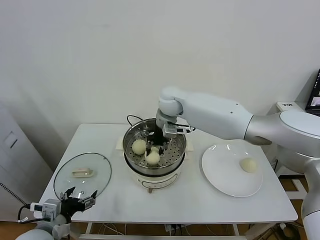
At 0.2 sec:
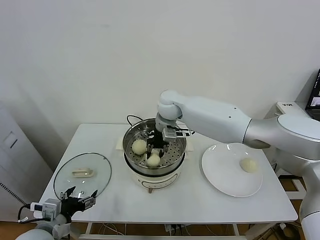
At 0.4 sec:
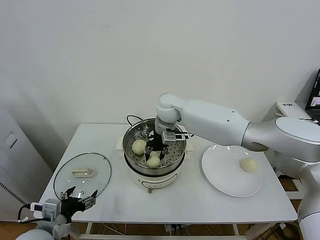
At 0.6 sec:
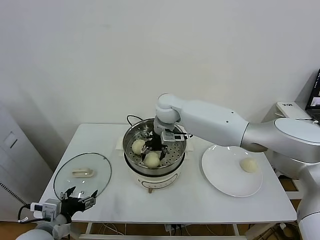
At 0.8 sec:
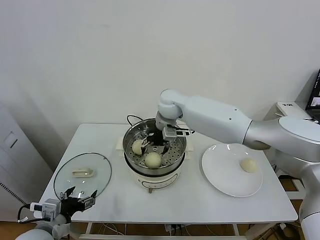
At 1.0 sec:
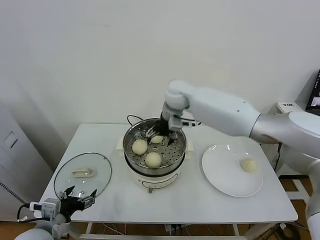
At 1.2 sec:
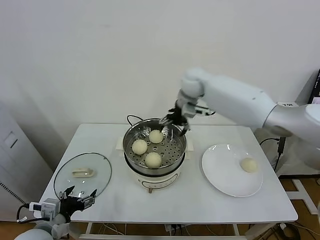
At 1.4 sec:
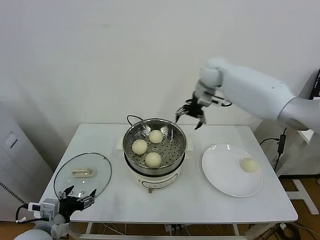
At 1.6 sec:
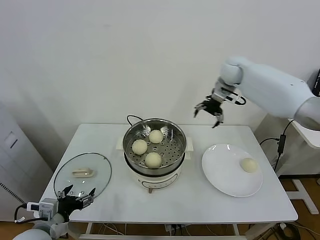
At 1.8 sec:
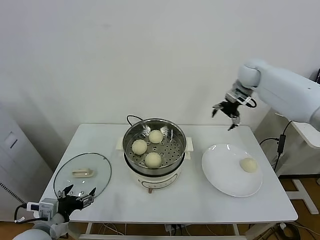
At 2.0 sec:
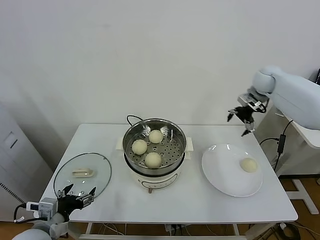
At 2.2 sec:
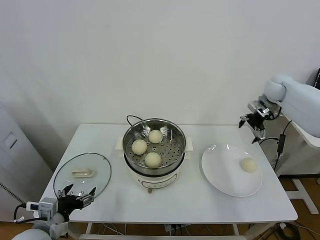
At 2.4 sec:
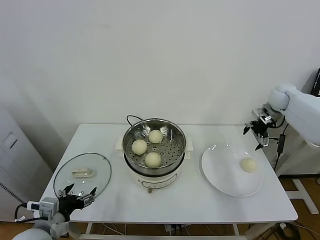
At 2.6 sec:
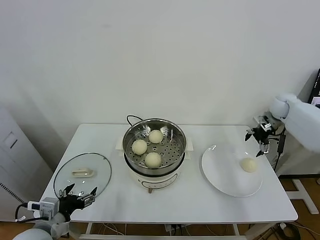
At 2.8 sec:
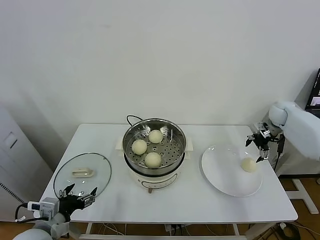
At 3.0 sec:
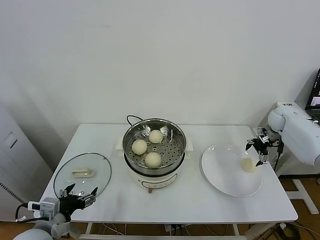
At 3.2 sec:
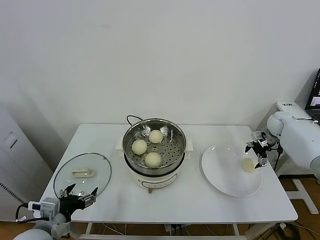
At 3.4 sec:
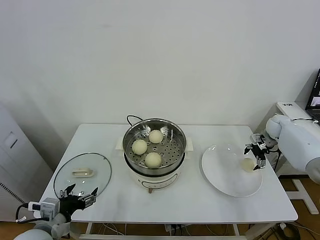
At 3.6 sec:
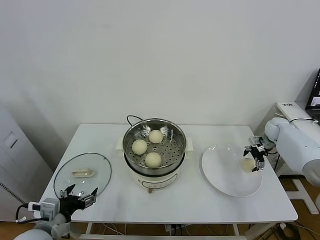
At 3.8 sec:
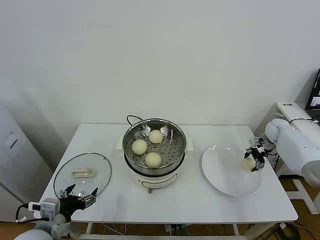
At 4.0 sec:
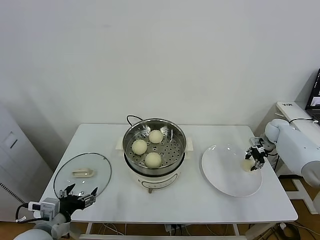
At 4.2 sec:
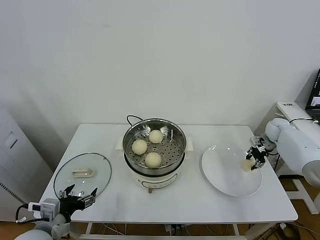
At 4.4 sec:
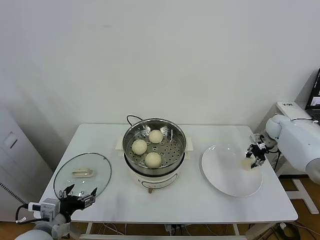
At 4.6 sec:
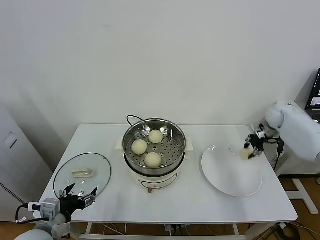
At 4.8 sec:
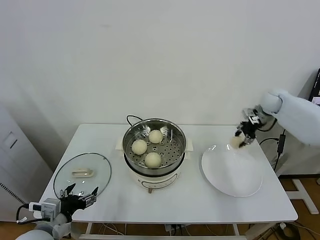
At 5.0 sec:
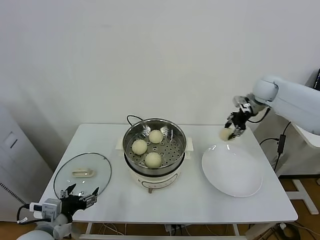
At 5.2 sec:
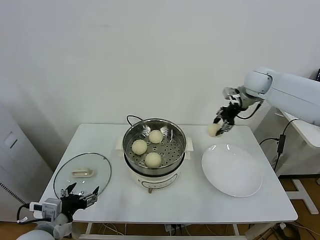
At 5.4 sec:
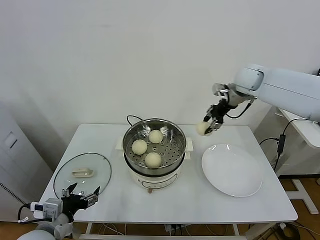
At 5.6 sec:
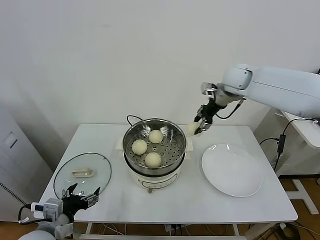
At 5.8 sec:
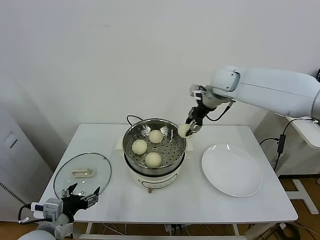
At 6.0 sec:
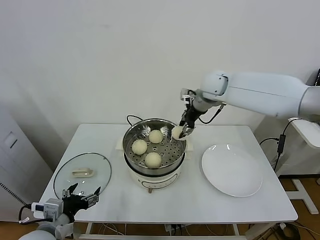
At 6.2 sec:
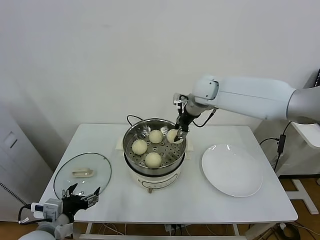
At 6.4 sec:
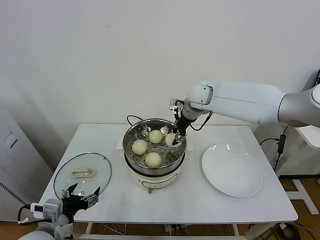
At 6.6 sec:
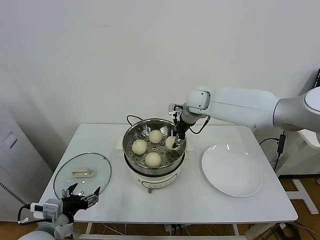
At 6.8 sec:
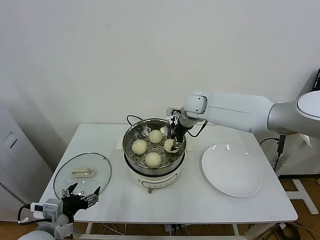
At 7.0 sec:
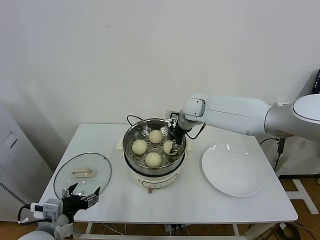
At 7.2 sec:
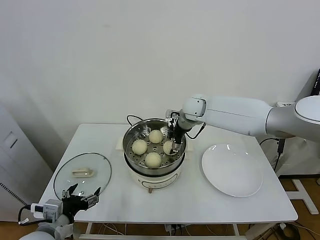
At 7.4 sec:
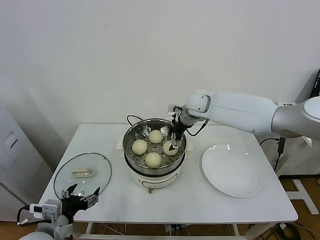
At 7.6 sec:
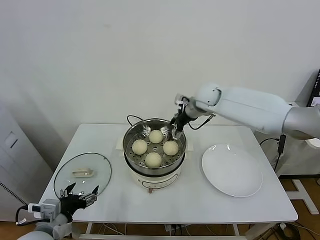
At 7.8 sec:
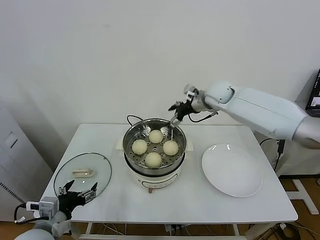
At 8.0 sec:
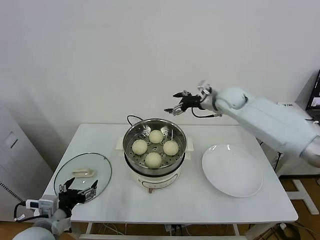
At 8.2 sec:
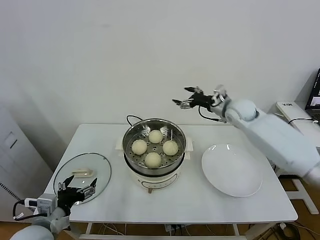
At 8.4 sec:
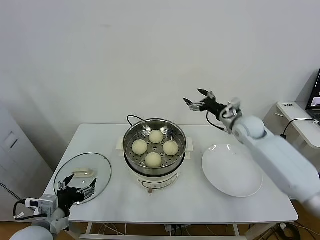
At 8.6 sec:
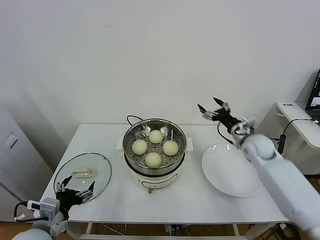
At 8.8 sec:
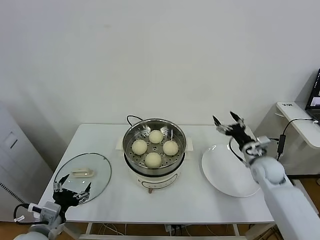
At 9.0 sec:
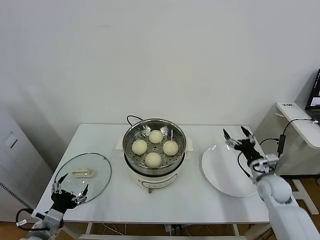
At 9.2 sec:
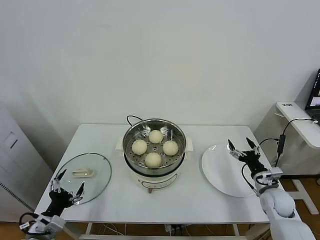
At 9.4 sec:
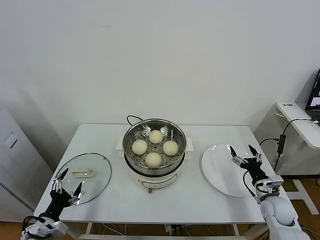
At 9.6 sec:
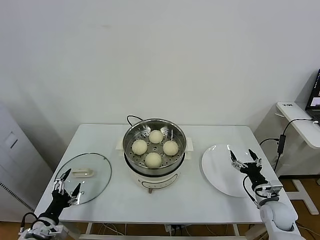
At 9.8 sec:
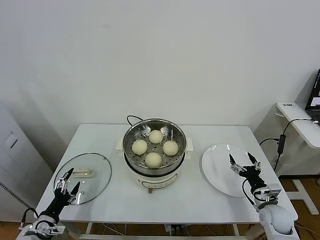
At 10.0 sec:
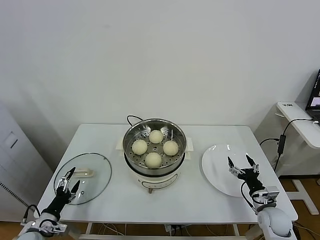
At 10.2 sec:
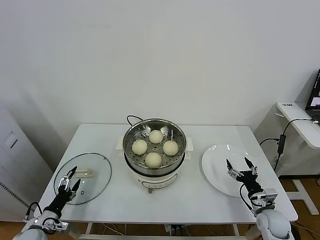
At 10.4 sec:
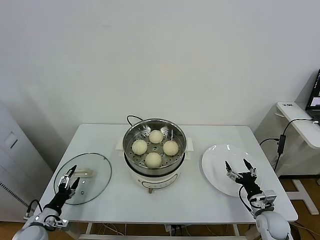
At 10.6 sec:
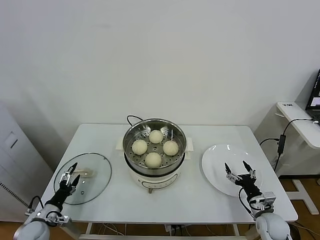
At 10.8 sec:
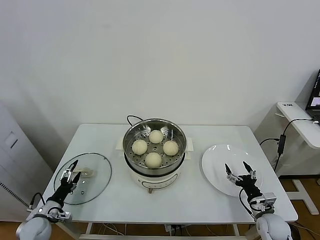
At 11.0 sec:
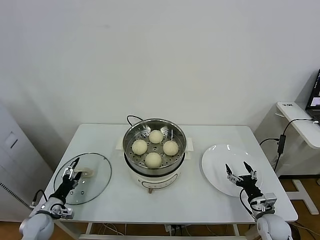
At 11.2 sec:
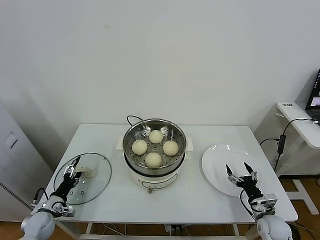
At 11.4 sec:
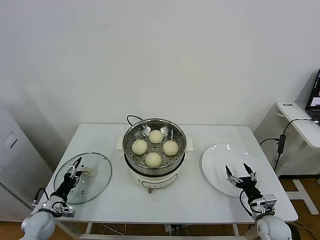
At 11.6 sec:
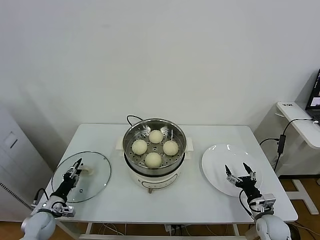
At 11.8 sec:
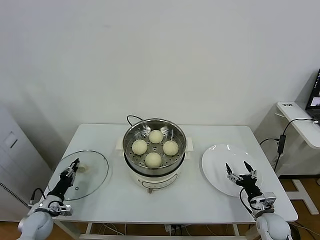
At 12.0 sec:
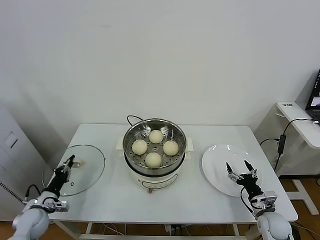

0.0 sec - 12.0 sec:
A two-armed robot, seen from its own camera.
Task of the whole recording: take steamed baozi put them in steamer.
Step, 1.0 sec - 3.8 sec: Grasp the baozi in the plate with right gripper.
Step, 4.2 sec - 7.2 sec: Place the baozi on the steamer with right gripper.
0.0 sec - 1.6 sec: The right gripper heads to the right, covering approximately 20 cm, and opens up.
1.6 sec - 3.0 sec: The right gripper goes some 30 cm to the right and downward.
3.0 sec - 4.4 sec: The right gripper closes its fingers.
4.4 sec - 6.0 sec: The right gripper shifts about 35 cm to the left and upward.
6.0 sec - 7.6 sec: The right gripper heads downward, covering about 5 cm, and opens its fingers.
7.6 sec - 9.0 sec: The left gripper shifts by roughly 5 cm, while the right gripper goes approximately 40 cm downward, to the right and backward.
9.0 sec - 10.4 sec: The right gripper moves downward and backward, some 15 cm. The left gripper goes roughly 20 cm downward, to the left and forward.
10.4 sec - 12.0 sec: The left gripper heads forward, covering about 5 cm, and closes its fingers.

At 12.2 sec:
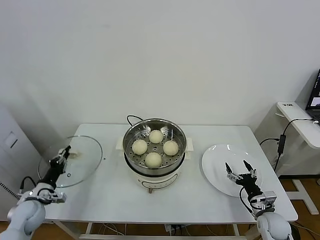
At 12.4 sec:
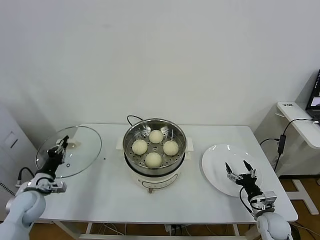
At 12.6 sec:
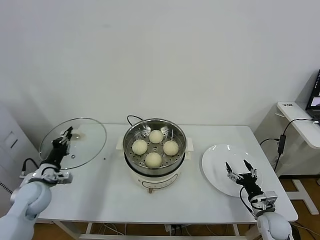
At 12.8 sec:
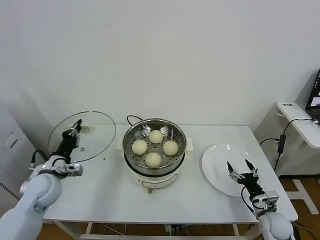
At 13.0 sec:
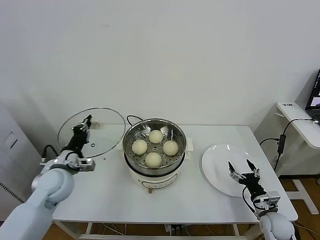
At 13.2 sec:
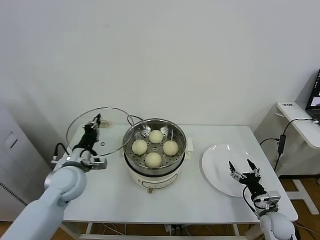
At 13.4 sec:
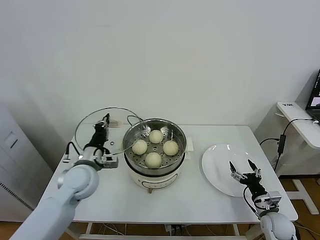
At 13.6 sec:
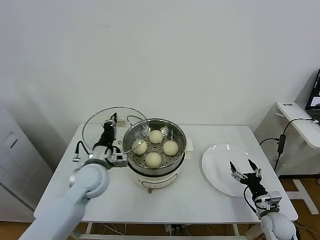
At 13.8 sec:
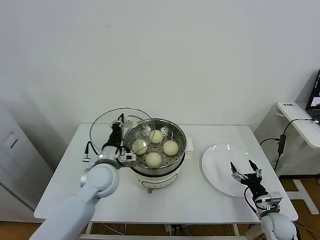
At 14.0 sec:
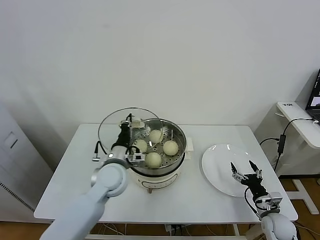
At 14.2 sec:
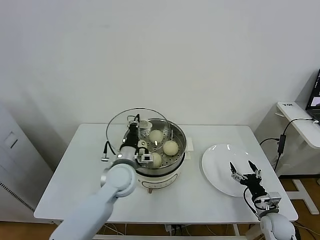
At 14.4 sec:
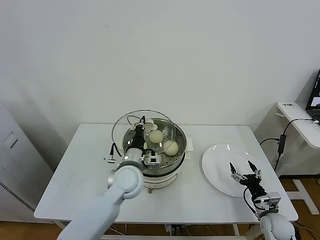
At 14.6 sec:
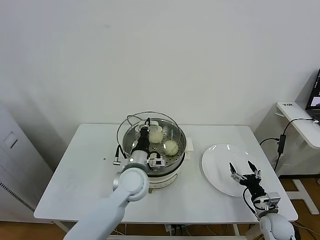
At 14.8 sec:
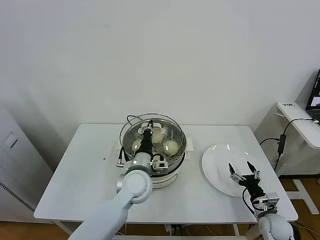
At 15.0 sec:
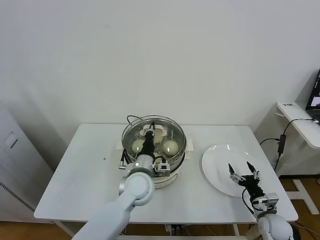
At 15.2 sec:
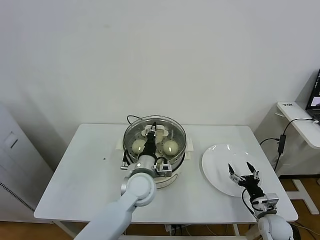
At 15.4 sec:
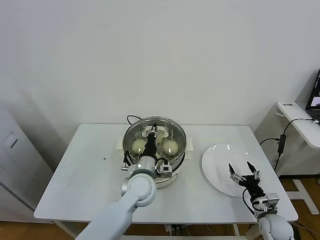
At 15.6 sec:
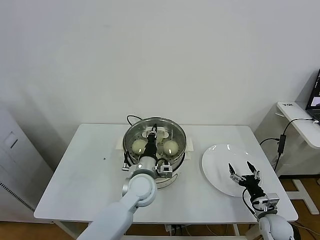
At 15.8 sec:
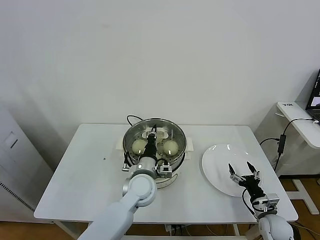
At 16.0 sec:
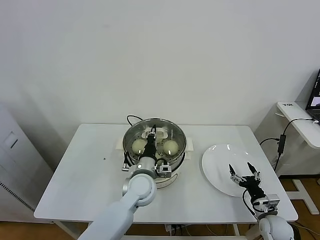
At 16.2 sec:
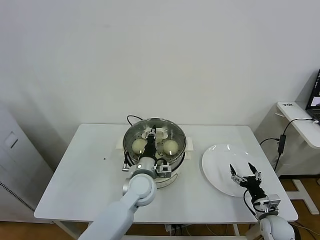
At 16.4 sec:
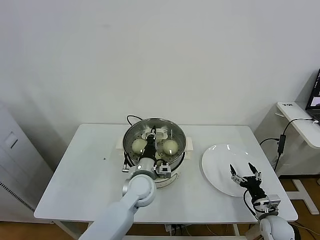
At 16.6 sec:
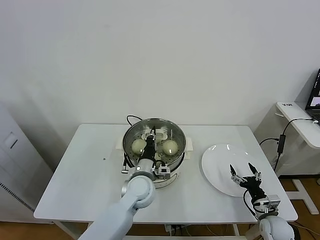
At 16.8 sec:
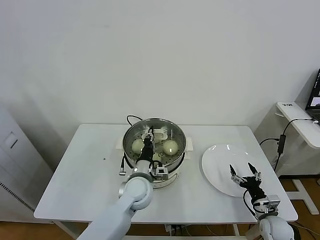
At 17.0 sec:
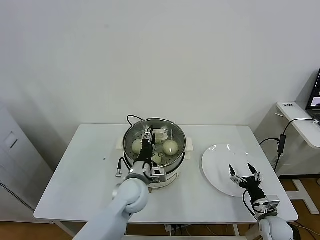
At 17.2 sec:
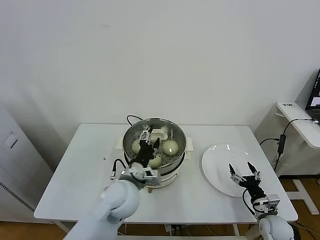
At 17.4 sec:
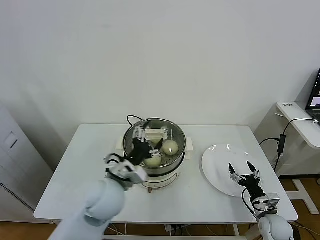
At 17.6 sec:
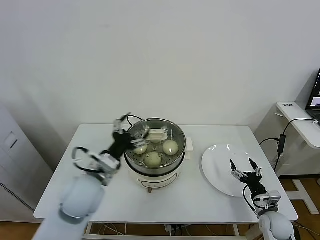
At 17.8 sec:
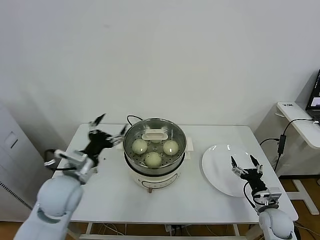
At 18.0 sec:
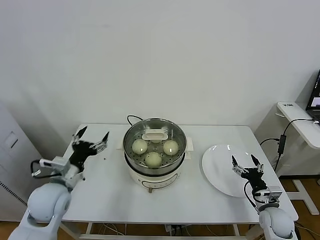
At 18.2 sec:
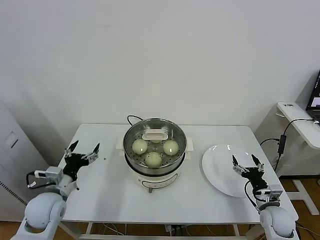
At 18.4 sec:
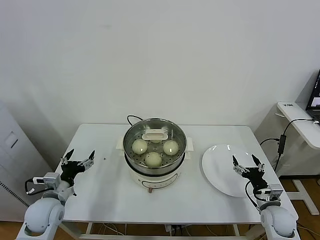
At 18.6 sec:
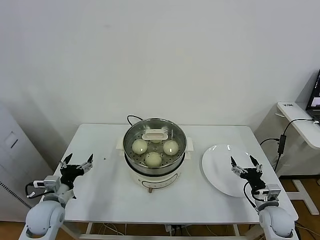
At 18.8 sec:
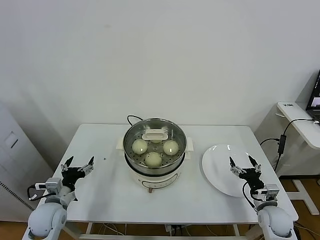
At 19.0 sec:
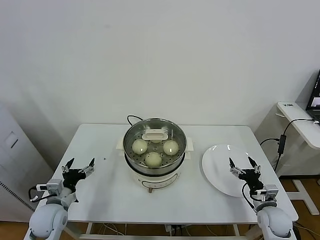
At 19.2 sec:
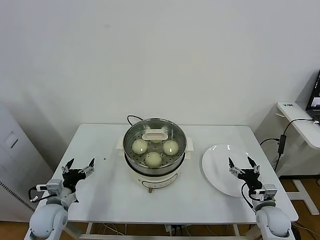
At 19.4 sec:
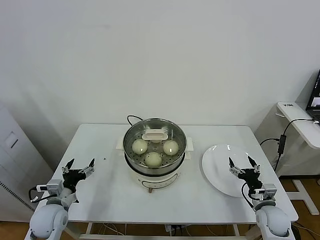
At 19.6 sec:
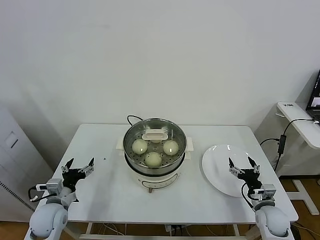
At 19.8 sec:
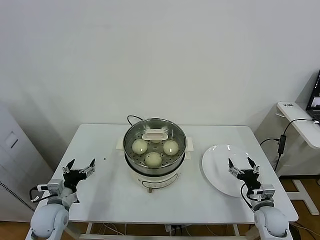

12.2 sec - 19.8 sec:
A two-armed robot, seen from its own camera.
Task of the whole recording: take steamed baozi put them in steamer.
Step, 12.2 sec - 17.4 sec: Place the pot lid on the steamer with left gripper.
12.2 sec - 13.8 sec: The left gripper moves to the right and upward, approximately 30 cm.
13.8 sec - 15.2 sec: The left gripper heads to the right, covering roughly 10 cm.
15.2 sec - 16.8 sec: The grippers move only a little.
16.8 sec - 18.2 sec: The left gripper is displaced to the left by roughly 25 cm, and opens up.
18.2 sec - 19.8 sec: The left gripper moves downward, some 5 cm.
